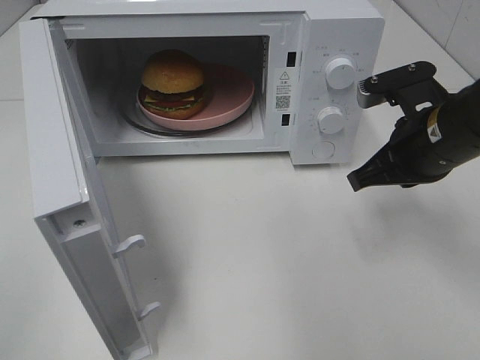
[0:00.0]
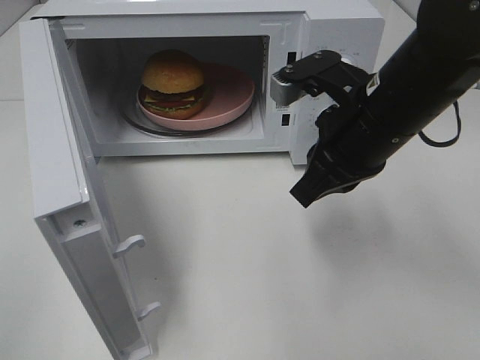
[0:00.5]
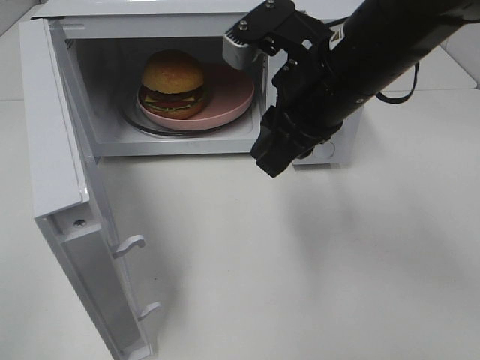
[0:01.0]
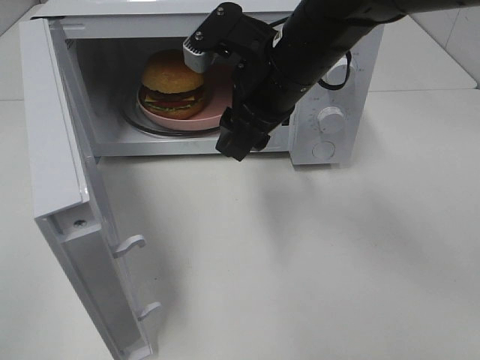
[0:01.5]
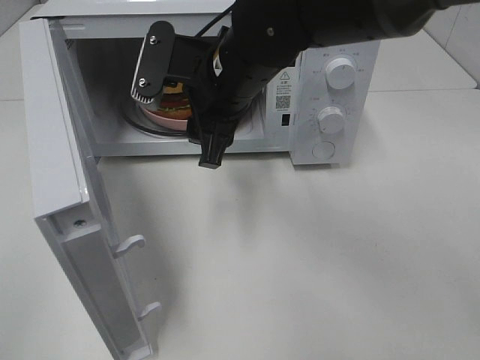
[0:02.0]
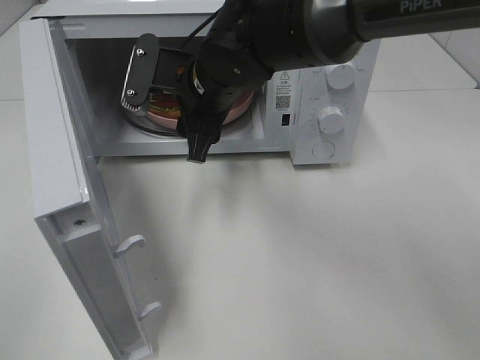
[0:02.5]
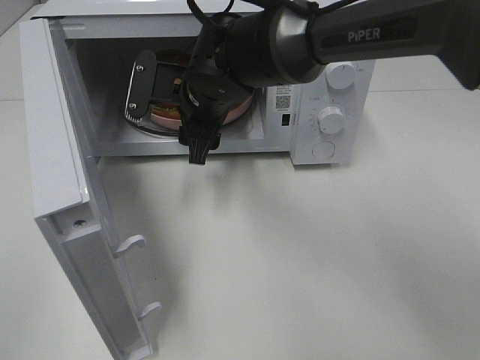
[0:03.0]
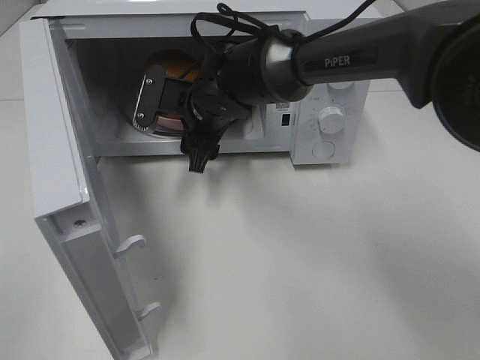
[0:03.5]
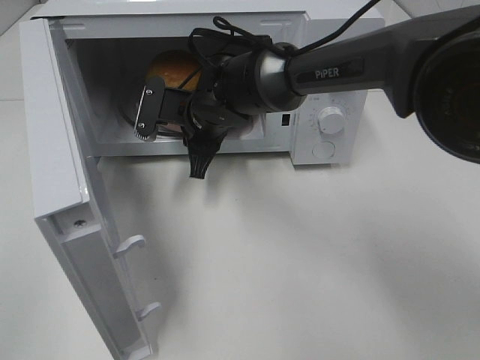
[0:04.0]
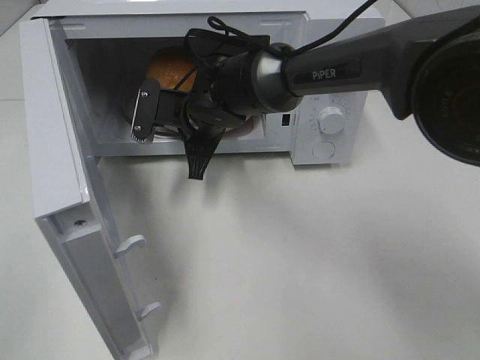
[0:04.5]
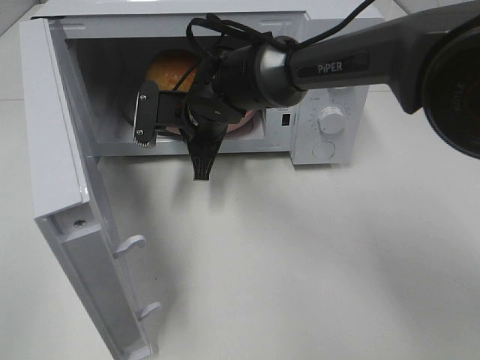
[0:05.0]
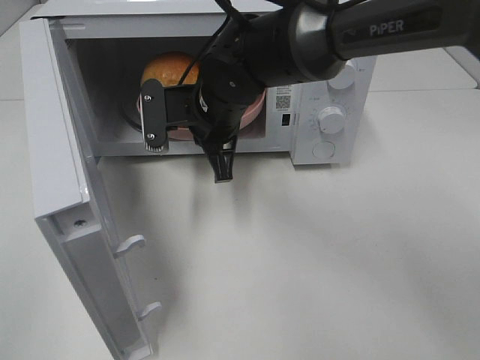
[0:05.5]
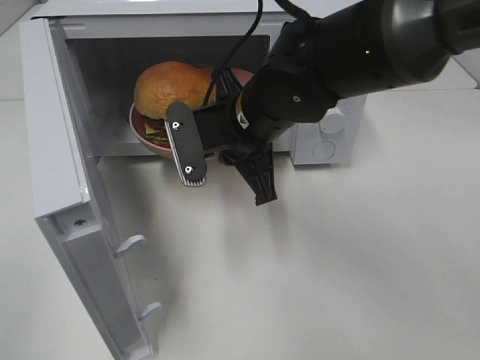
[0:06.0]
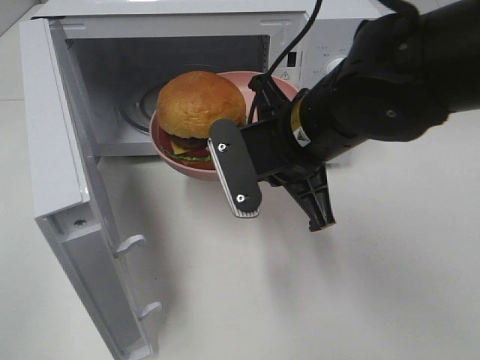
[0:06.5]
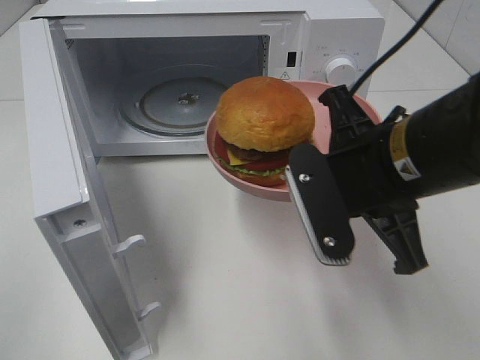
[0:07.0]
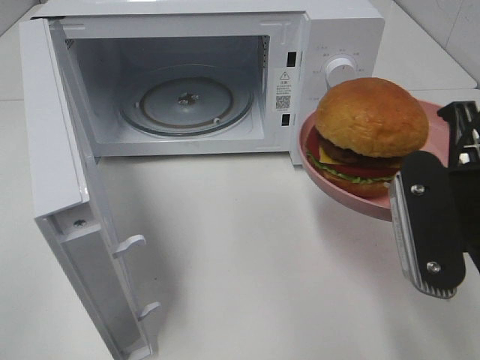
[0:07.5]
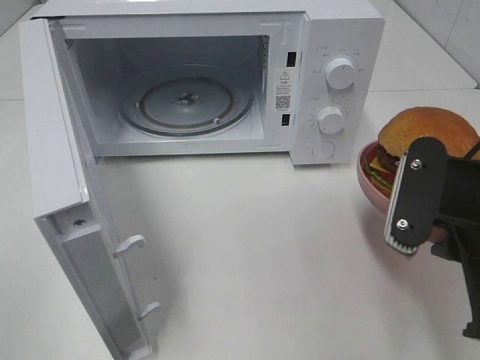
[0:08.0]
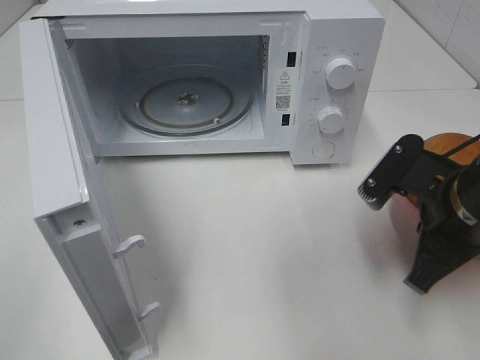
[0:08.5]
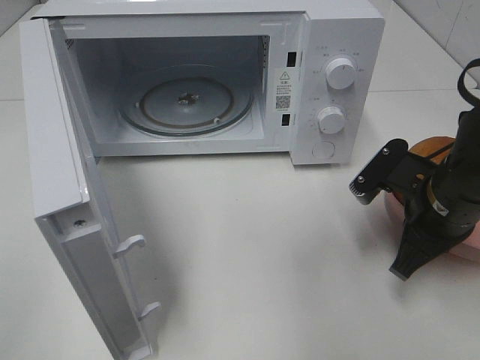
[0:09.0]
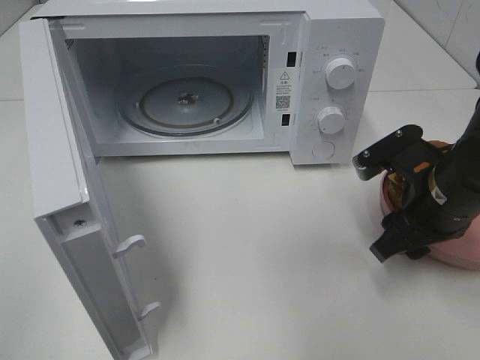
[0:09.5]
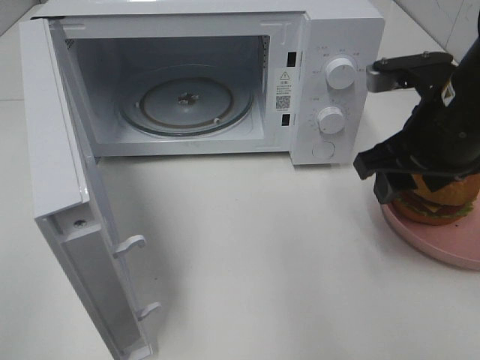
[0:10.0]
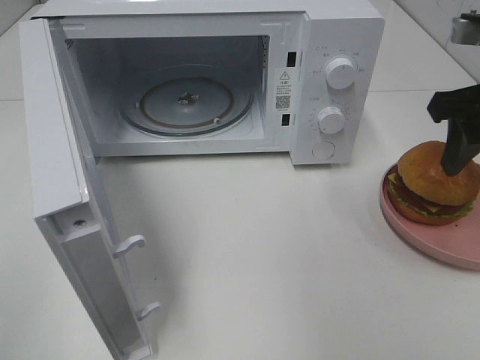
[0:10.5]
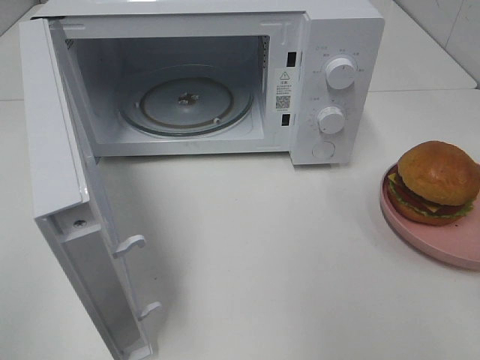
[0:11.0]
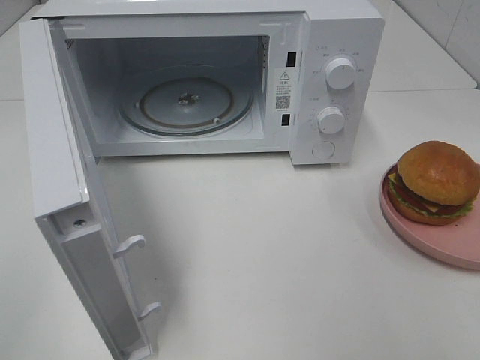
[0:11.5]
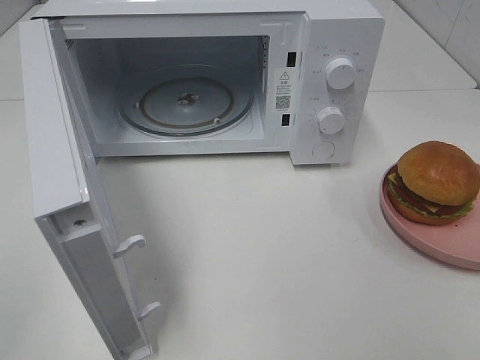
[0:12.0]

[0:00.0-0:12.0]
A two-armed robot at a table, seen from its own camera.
Task of the whole recording: Heat the burger.
Step, 0:00.0 to 0:04.5: Right hand: grab the plate with the hamburger.
Step, 0:05.0 to 0:09.0: Right hand: place the plate on the table.
0:00.0 to 0:02.0: The right gripper moves to the left, some 20 cm, and opens up.
0:02.0 to 0:04.0: The right gripper heads downward and forward, covering about 10 cm, and closes its fingers.
0:04.0 to 0:06.0: The right gripper moves backward, upward and to the right, some 10 cm.
0:06.0 to 0:08.0: The right gripper heads to the right and backward, covering roughly 25 cm.
0:08.0 to 0:10.0: The right gripper is displaced forward by approximately 10 cm, and opens.
0:10.0 to 0:12.0: The right gripper shifts about 25 cm backward.

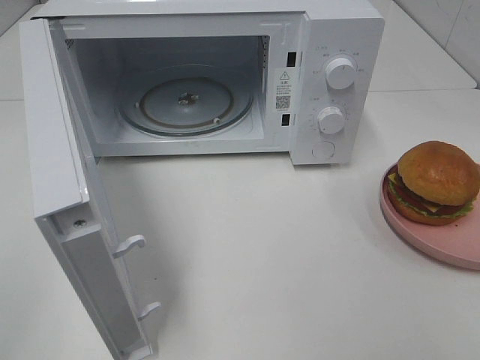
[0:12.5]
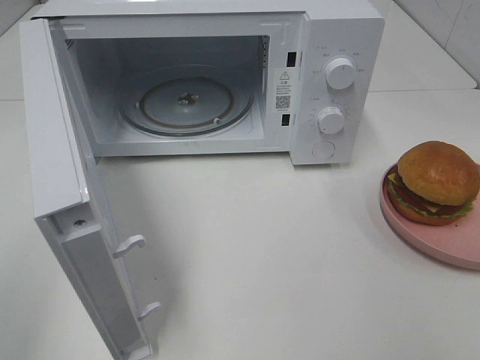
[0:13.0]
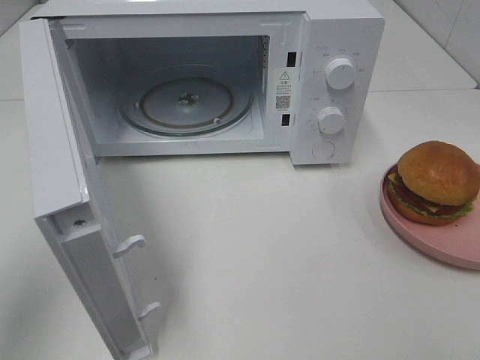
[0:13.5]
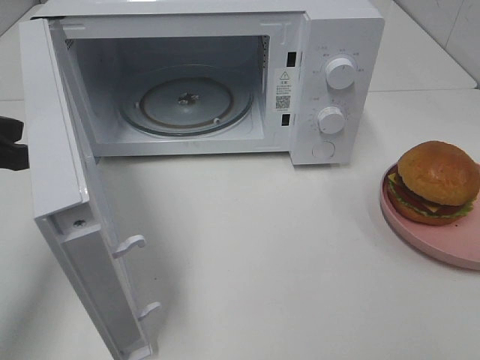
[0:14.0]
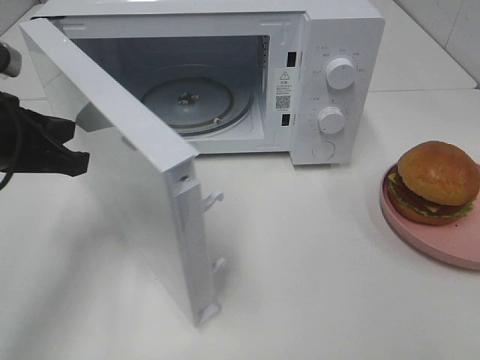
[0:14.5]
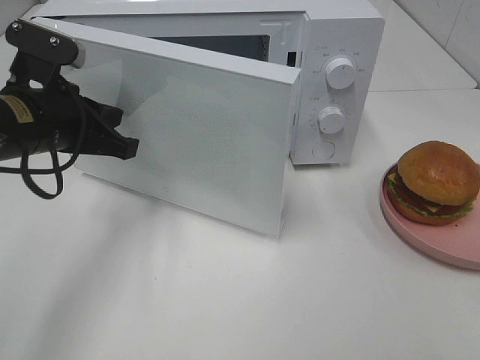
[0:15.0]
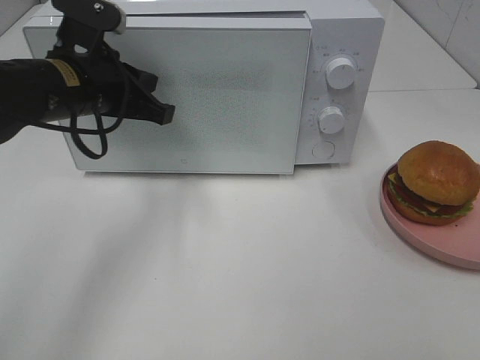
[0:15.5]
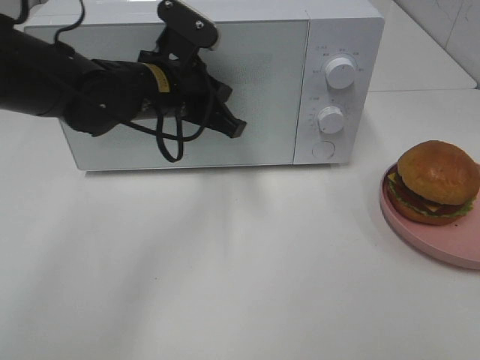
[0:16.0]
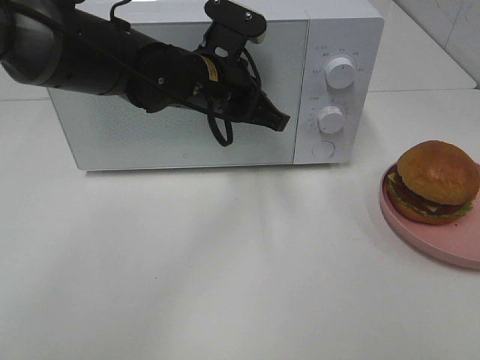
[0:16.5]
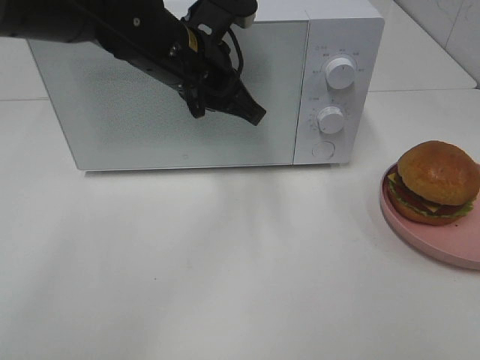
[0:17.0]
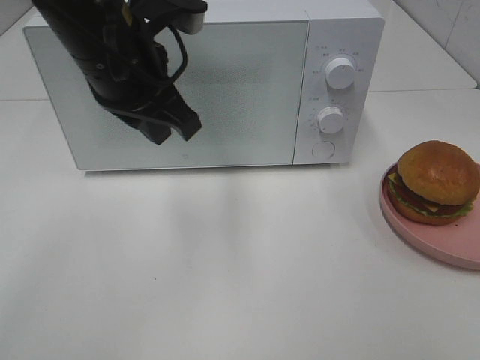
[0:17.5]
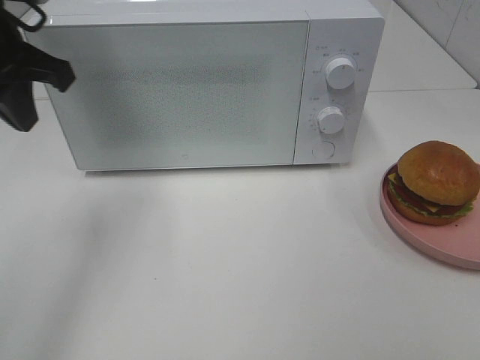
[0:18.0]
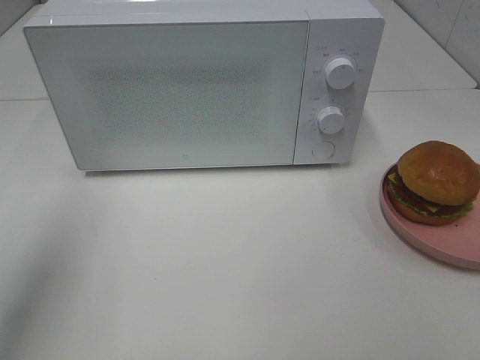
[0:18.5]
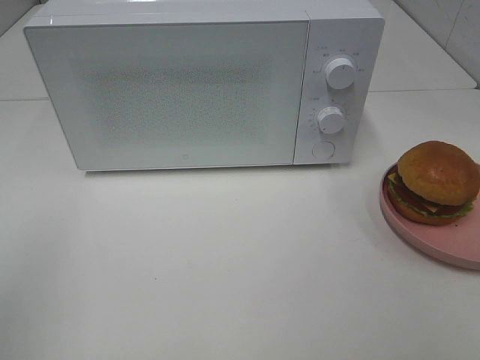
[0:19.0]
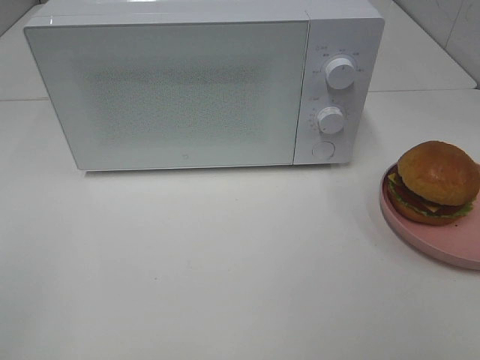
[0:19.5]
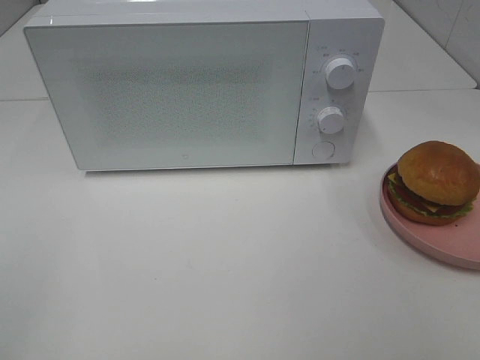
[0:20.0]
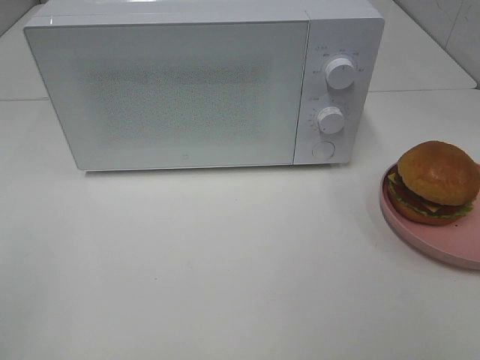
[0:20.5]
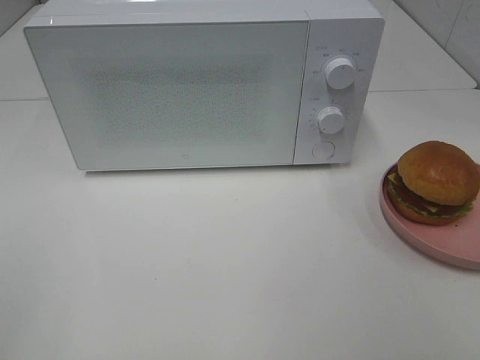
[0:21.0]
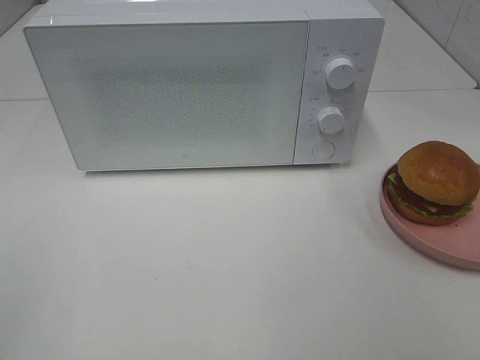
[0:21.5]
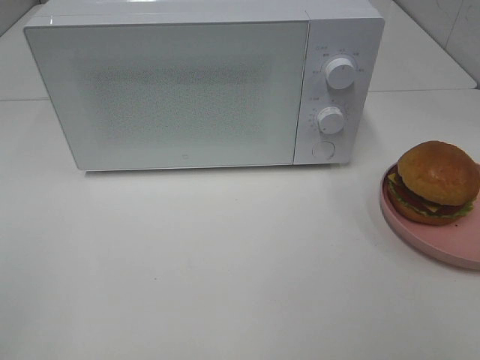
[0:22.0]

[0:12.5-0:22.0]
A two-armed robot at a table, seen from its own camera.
Task of the whole recording: Heat the burger.
Step, 0:12.5 to 0:17.0: Left hand: close the microwave door.
0:12.5 to 0:14.5: The left gripper travels forward by approximately 25 cm.
0:14.5 to 0:16.5: The left gripper shifts roughly 20 cm to the right and forward, and opens up.
0:16.5 to 0:18.0: The left gripper shifts approximately 20 cm to the left and upward.
0:18.0 to 0:20.0: The left gripper is displaced backward by about 30 cm, and closes up.

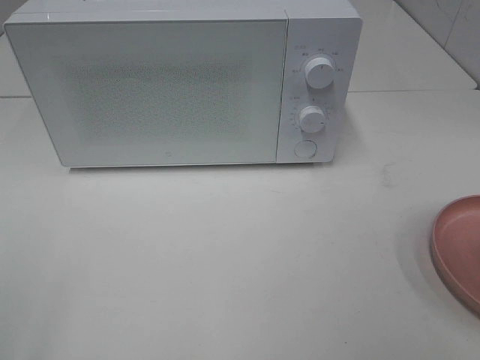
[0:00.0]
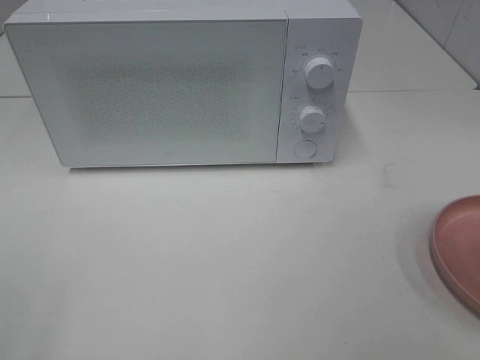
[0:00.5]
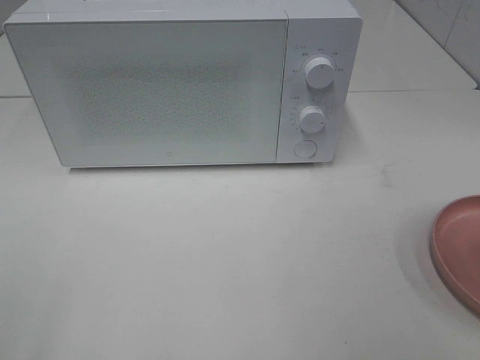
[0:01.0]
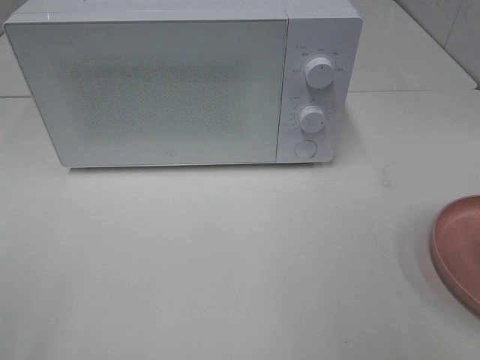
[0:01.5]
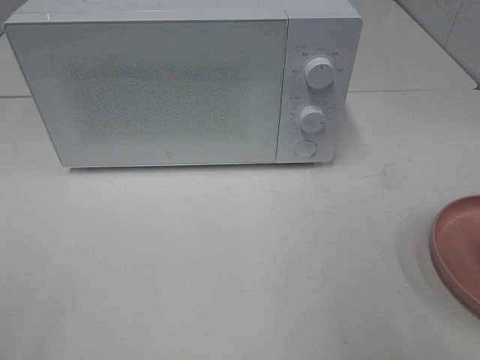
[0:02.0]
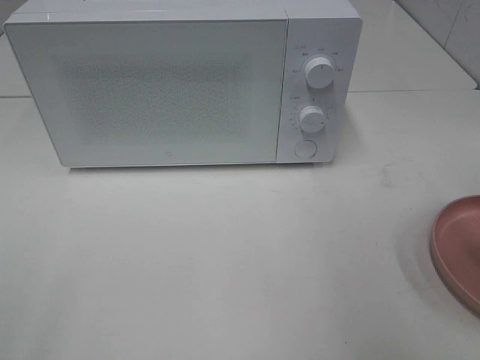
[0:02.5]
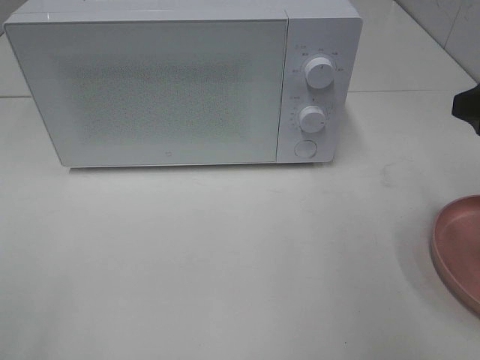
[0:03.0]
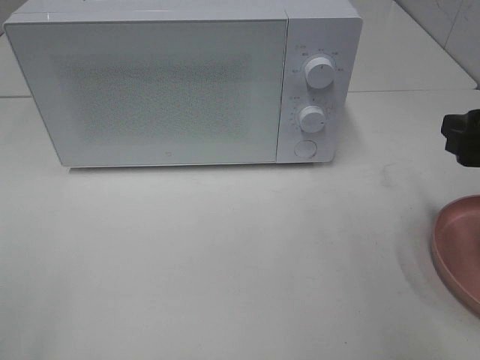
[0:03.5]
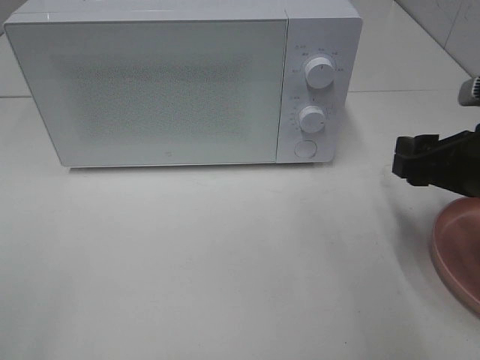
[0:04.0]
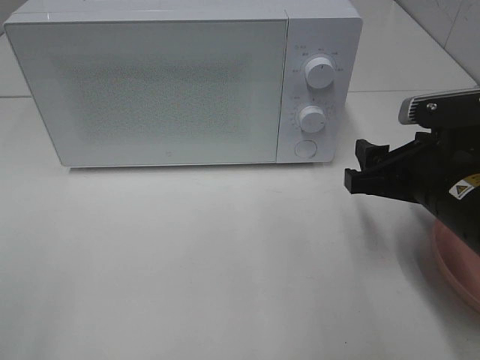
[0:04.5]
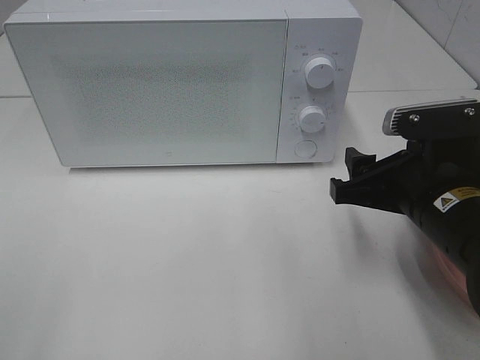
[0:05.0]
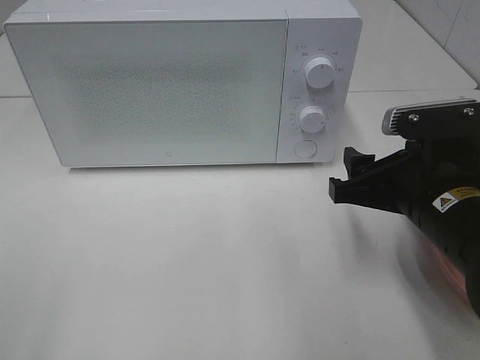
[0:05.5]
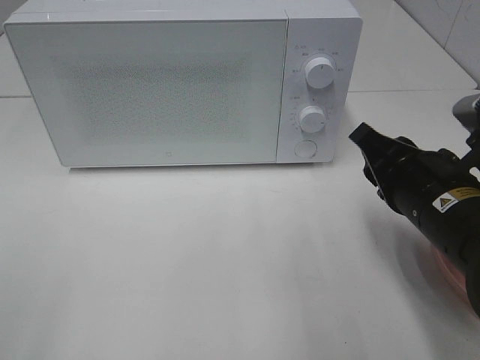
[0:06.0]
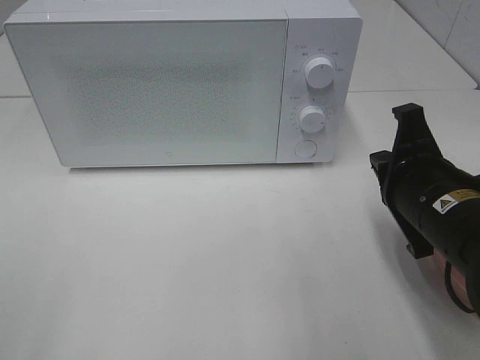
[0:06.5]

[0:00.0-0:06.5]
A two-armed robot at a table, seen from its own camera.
Task of the whole recording: Heat the burger.
0:02.0 to 0:04.5: The right gripper shifts some 20 cm downward, forward and to the left.
0:04.5 to 0:06.5: The right gripper closes its fingers.
